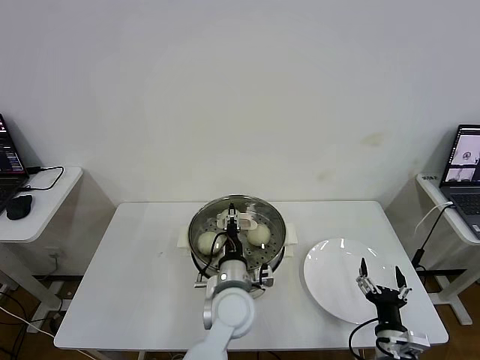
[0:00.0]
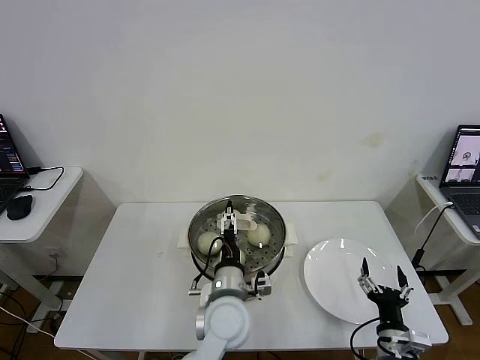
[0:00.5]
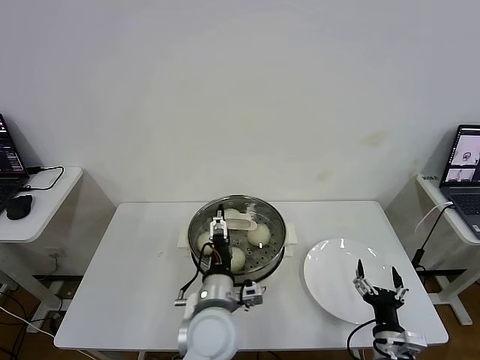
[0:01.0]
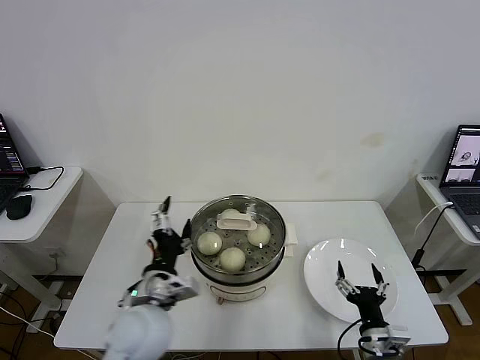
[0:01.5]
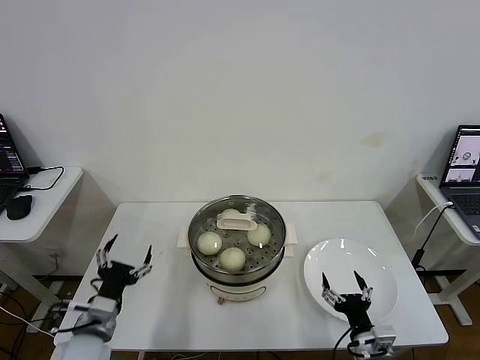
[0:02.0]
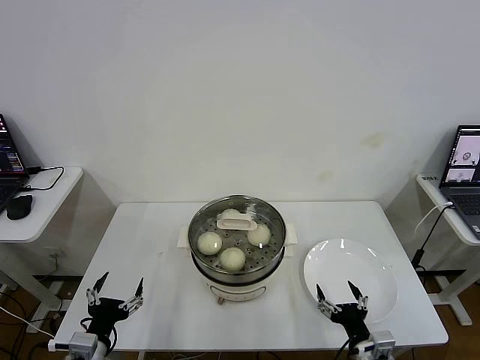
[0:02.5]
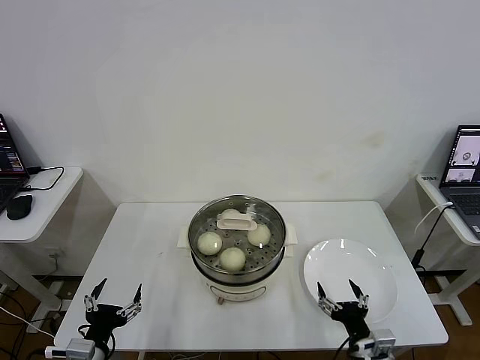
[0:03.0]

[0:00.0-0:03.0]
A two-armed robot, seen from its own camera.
Task of the whole recording: take steamed baozi put them in steamer then cover it.
0:00.0 to 0:01.5: The left gripper heads to the left, backward and upward, covering about 15 cm, and opens up.
0:01.5 to 0:03.0: The left gripper shifts roughly 20 cm to the left, backward and downward.

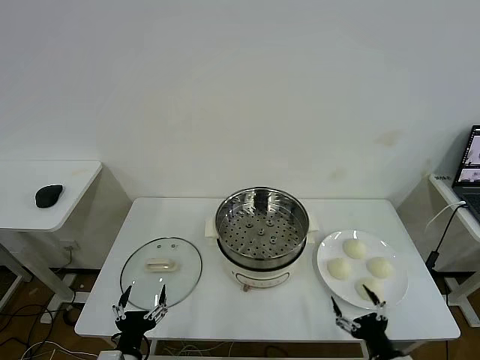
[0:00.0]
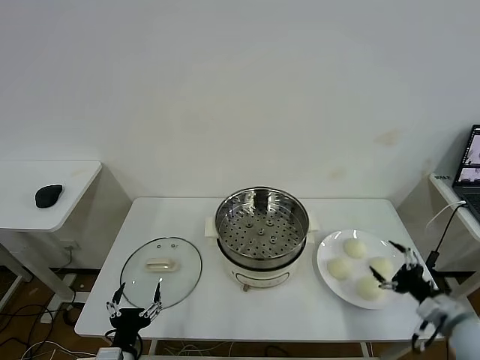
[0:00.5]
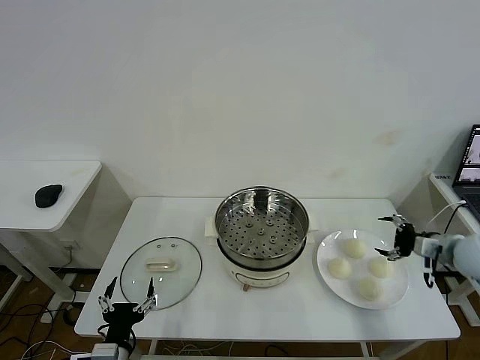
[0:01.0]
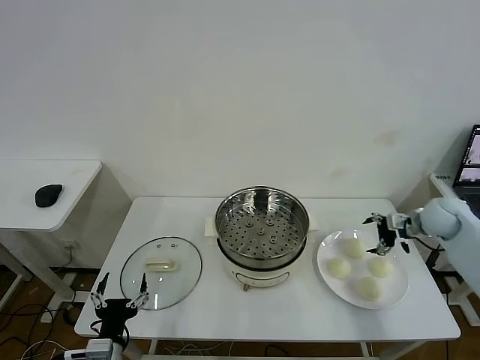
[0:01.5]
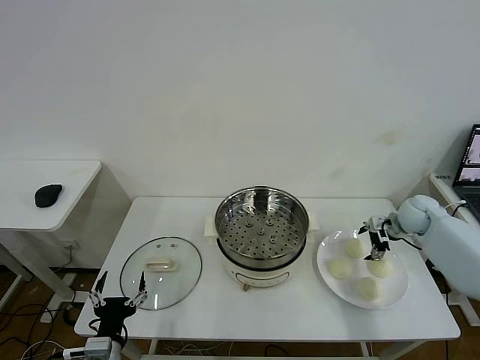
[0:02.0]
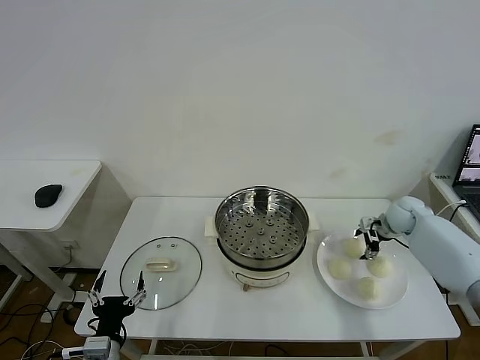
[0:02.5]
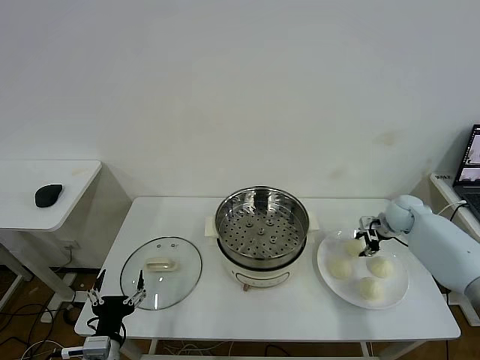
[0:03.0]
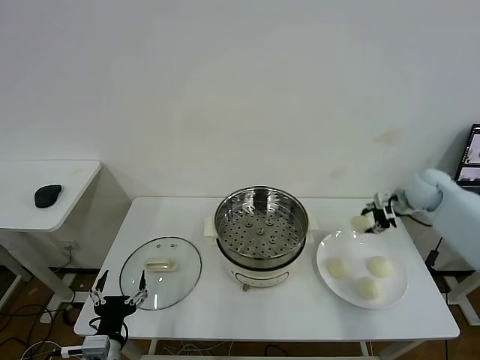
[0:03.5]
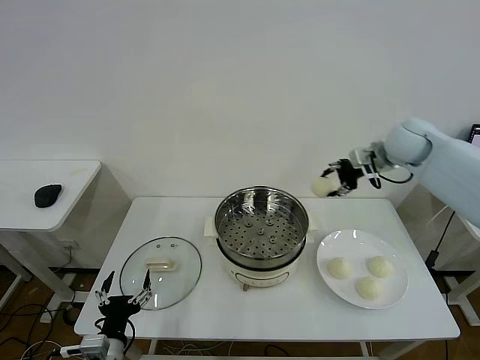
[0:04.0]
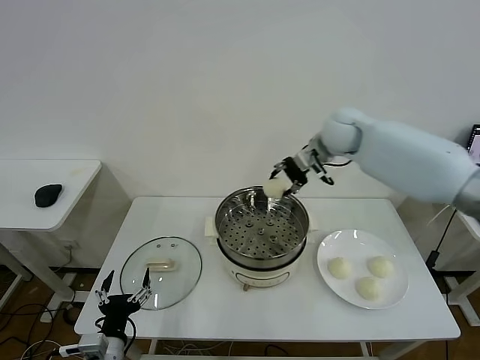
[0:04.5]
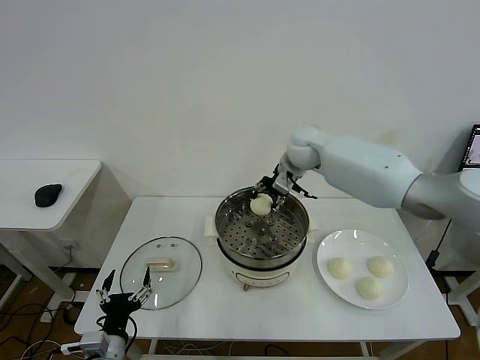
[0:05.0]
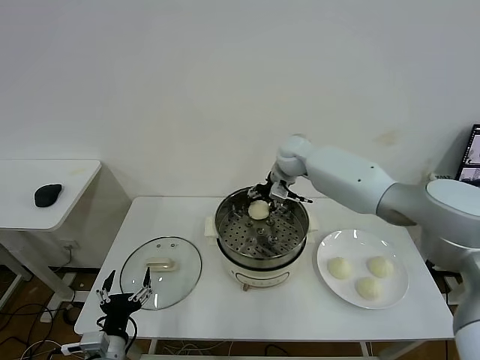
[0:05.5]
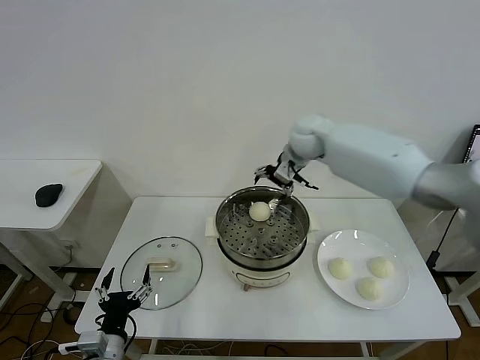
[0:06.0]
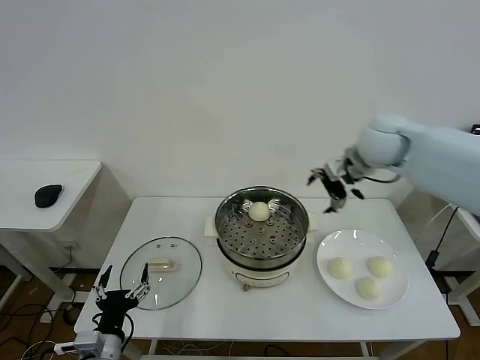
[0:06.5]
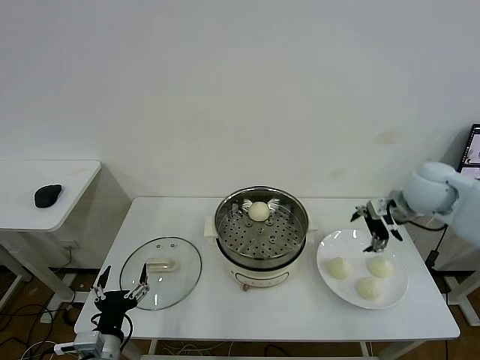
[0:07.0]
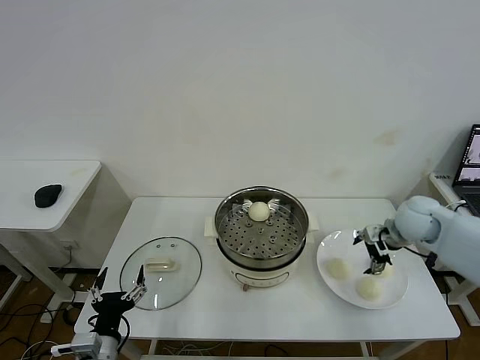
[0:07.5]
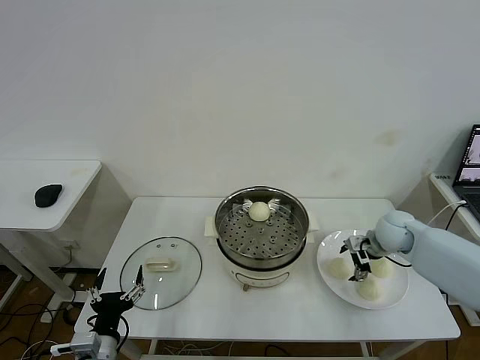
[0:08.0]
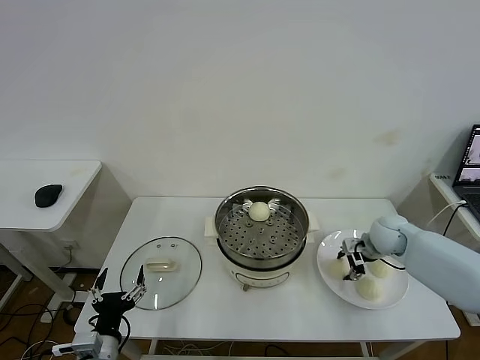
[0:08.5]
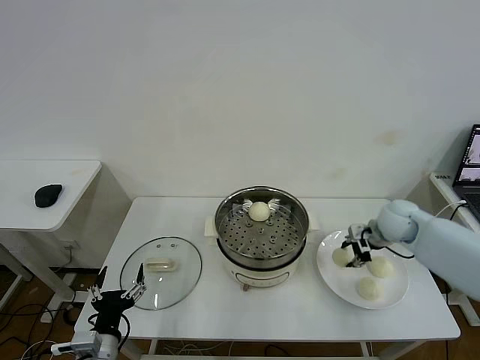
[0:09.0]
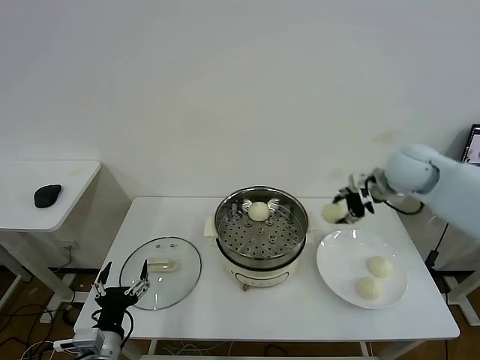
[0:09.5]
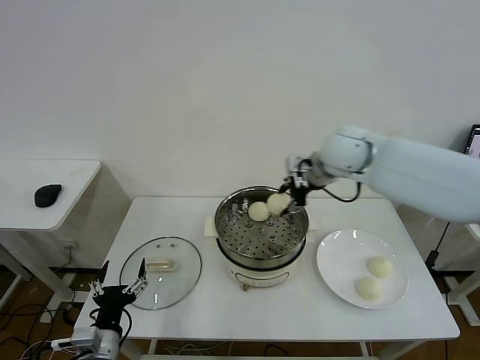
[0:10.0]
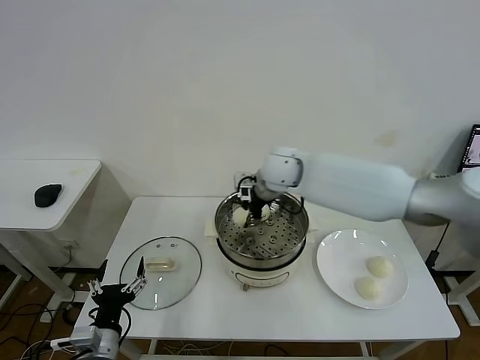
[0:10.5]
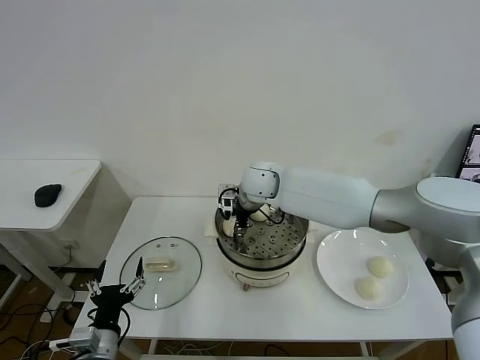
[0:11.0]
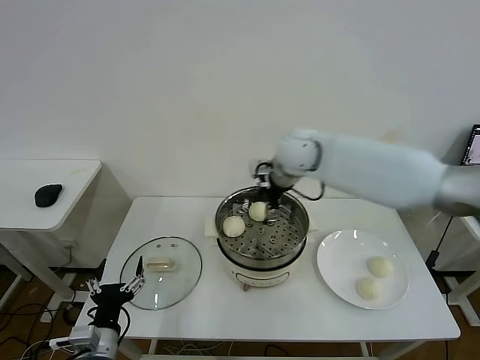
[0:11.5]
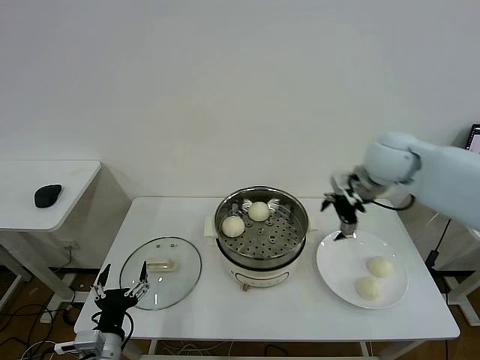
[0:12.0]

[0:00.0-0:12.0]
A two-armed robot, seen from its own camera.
Task of the whole recording: take steamed baozi put them in steamer then cover it.
Step, 0:00.0 to 0:02.5: Grasp the baozi in the plate with right gripper.
Step, 0:03.5 to 0:05.5: Place the baozi on the steamer with right gripper.
Step, 0:06.0 to 0:08.5: Grasp the baozi in the plate with right gripper.
Step, 0:09.0 to 0:11.0: Place the baozi on the steamer with right gripper.
0:02.0 to 0:04.0: The right gripper moves upward and to the left, approximately 25 cm, and closes.
0:04.0 to 0:06.0: The right gripper is displaced to the left by roughly 15 cm, and opens.
0:06.0 to 0:08.0: The right gripper is displaced downward, to the right and backward by about 30 cm.
0:08.0 to 0:10.0: The right gripper moves upward and to the left, some 30 cm, and closes up.
0:10.0 to 0:12.0: The right gripper moves to the right, some 10 cm, and opens.

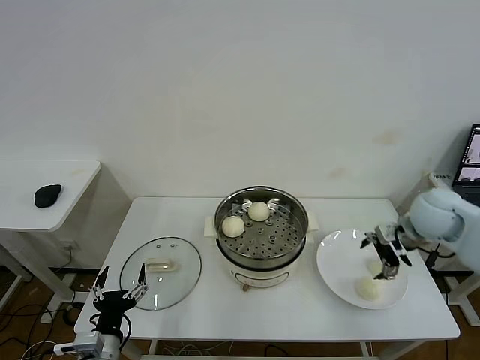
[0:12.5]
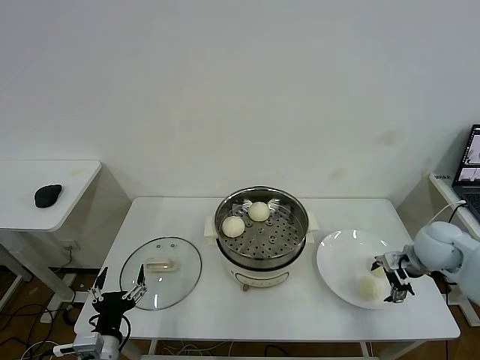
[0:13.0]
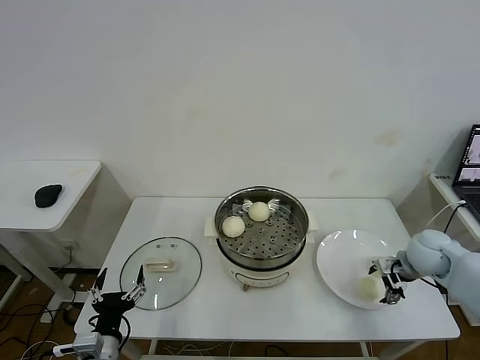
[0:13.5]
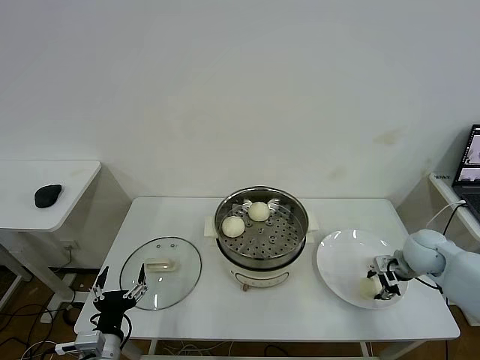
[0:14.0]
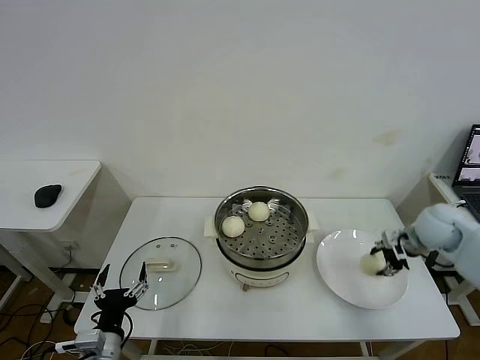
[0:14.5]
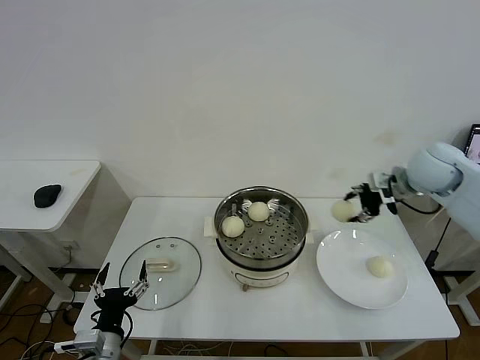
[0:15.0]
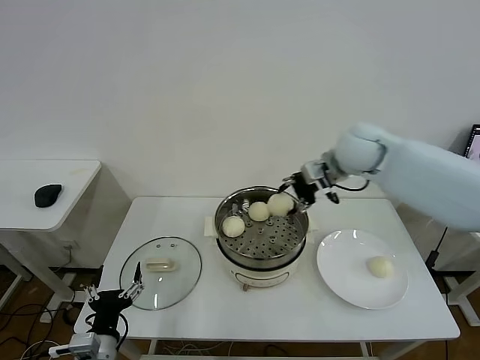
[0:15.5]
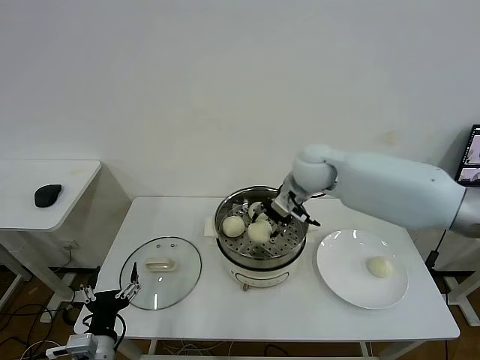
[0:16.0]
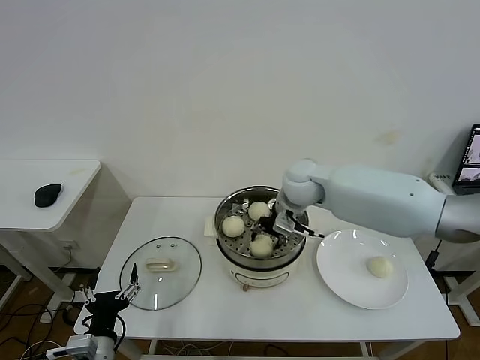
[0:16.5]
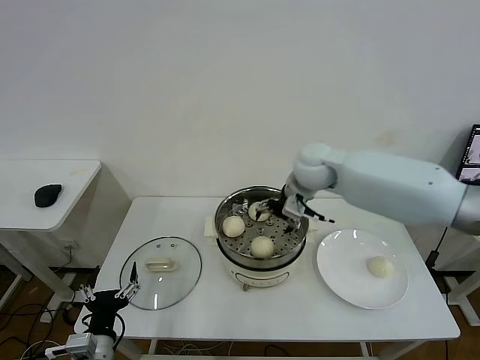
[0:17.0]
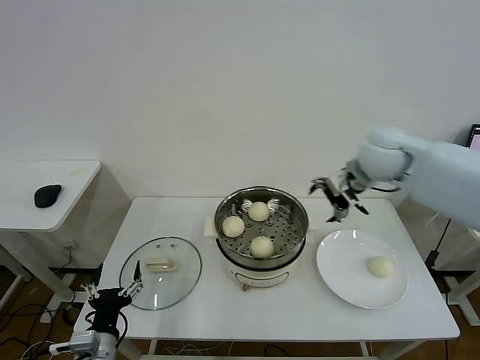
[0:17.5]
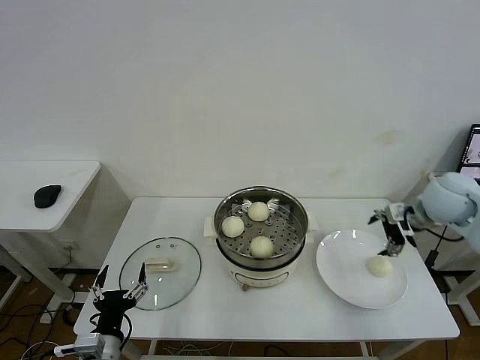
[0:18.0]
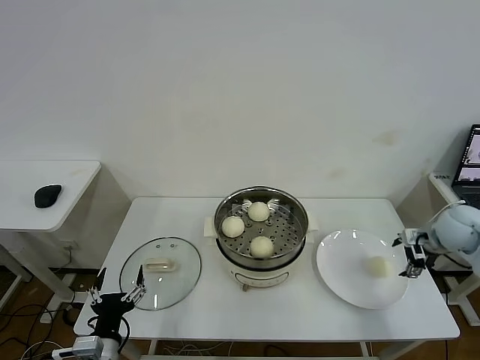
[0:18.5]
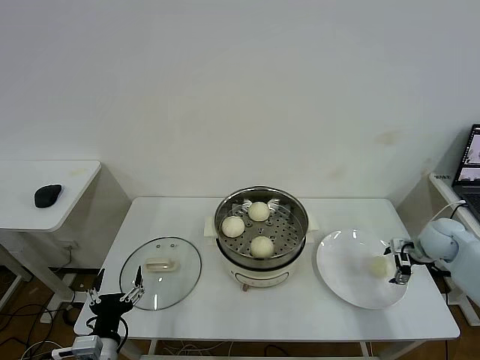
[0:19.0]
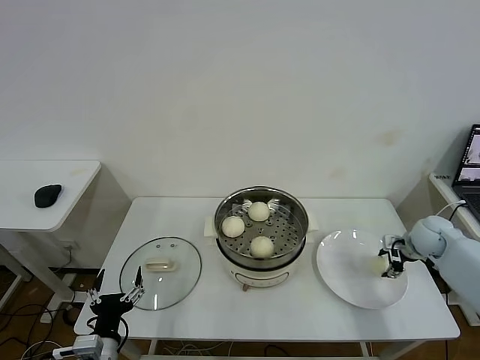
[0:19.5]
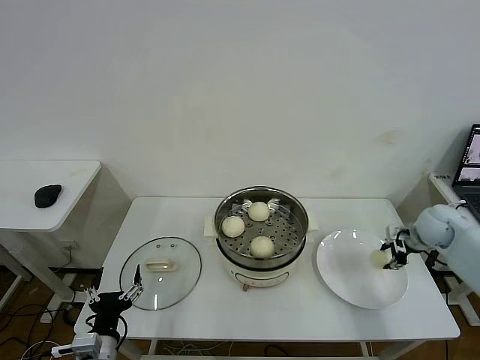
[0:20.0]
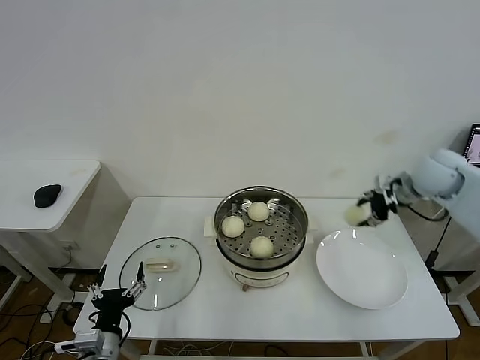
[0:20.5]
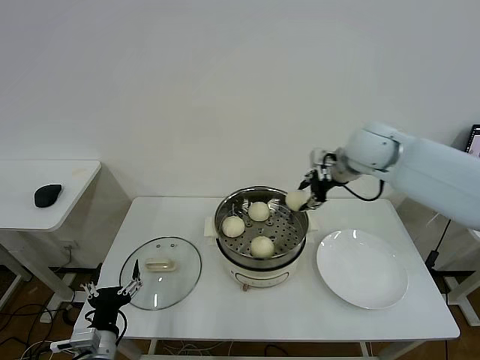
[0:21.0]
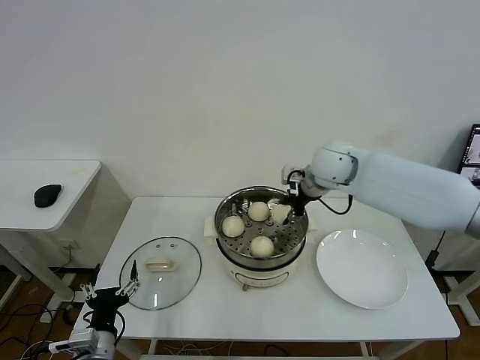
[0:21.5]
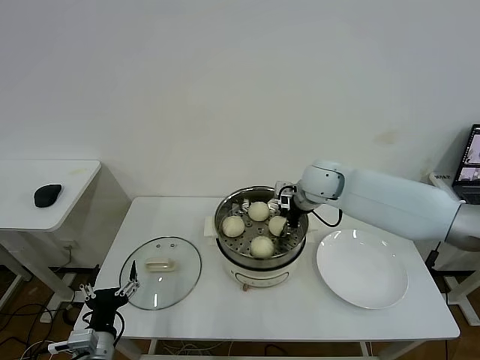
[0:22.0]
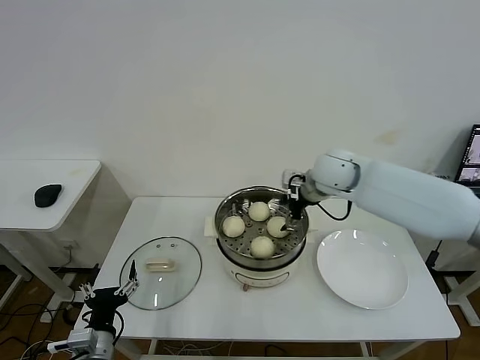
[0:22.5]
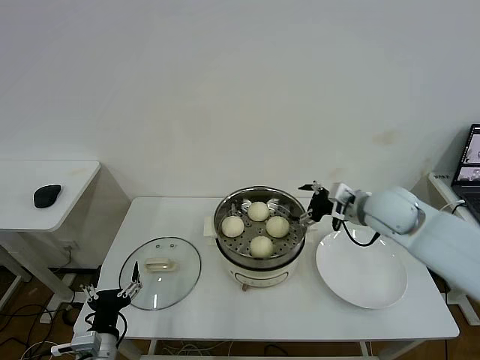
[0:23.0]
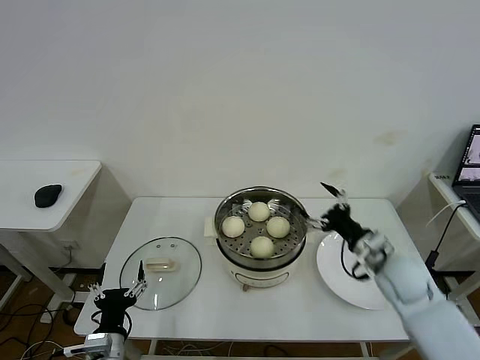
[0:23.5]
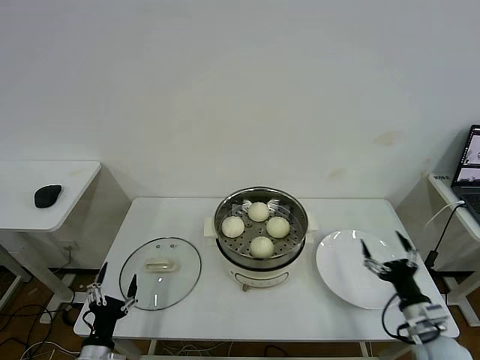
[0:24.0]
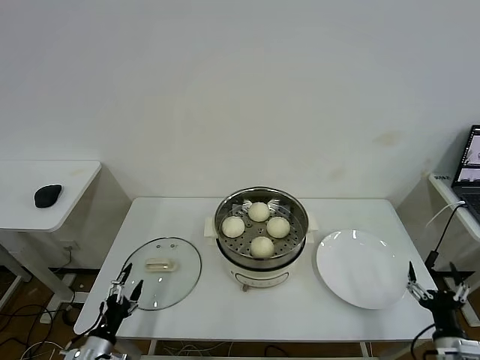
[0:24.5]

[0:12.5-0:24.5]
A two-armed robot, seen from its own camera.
Task of the whole recording: take steamed baozi put them in steamer then cover it.
Step, 0:12.5 to 0:14.0: Grasp the baozi in the plate with right gripper.
Step, 0:14.5 to 0:16.5: Place the baozi on the steamer with right gripper.
Step, 0:17.0 to 0:19.5: Grasp the baozi in the plate with right gripper.
Step, 0:20.0 to 0:22.0: Place the baozi on the steamer with right gripper.
0:12.5 to 0:14.5: The right gripper closes.
0:14.5 to 0:16.5: The right gripper goes roughly 30 cm to the left.
0:16.5 to 0:18.5: The right gripper goes roughly 35 cm to the right, and opens.
0:18.5 to 0:20.5: The right gripper heads upward, to the left and forward, covering approximately 15 cm, and closes up.
0:20.5 to 0:22.5: The right gripper heads to the left, covering some 20 cm, and opens up.
0:22.5 to 0:24.5: The right gripper goes some 50 cm backward, downward and to the right. Meanwhile the left gripper goes about 10 cm downward and to the left.
